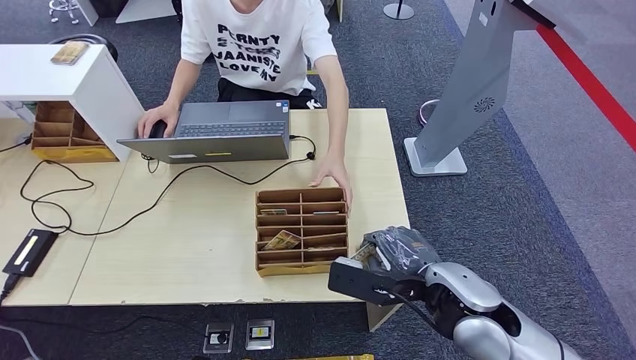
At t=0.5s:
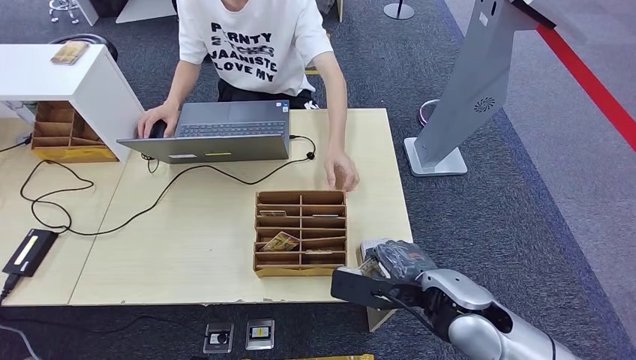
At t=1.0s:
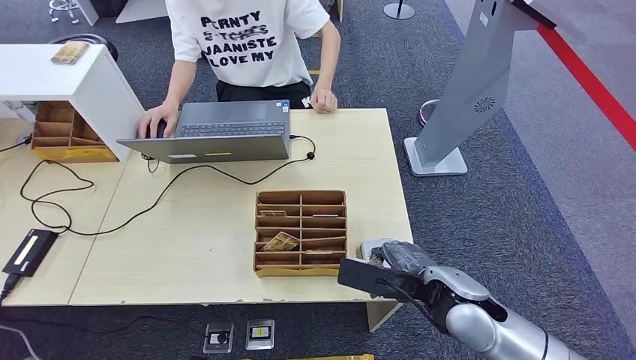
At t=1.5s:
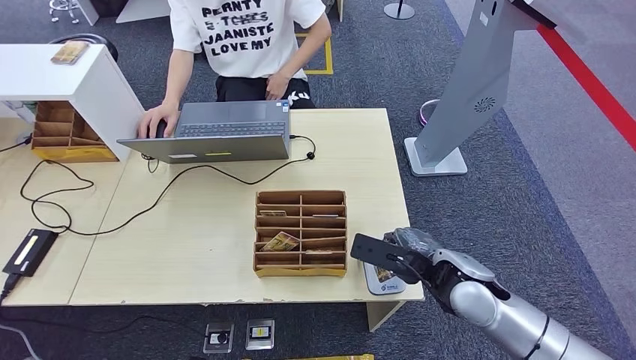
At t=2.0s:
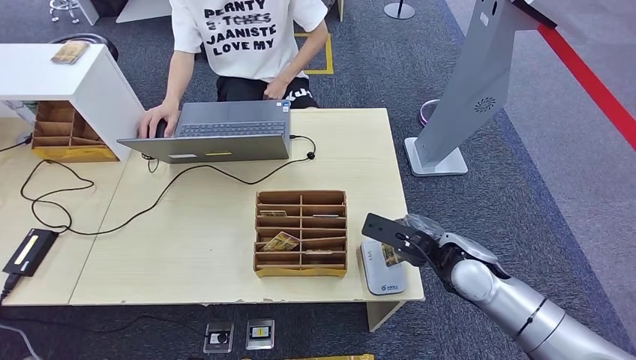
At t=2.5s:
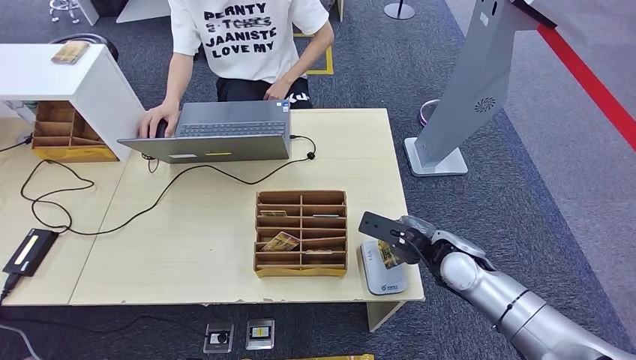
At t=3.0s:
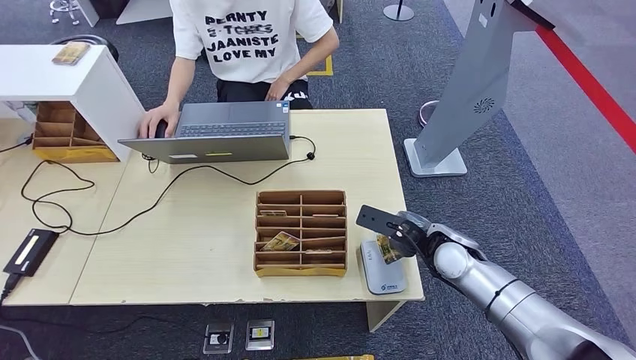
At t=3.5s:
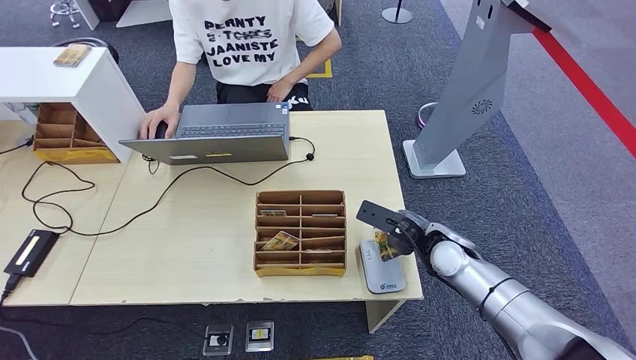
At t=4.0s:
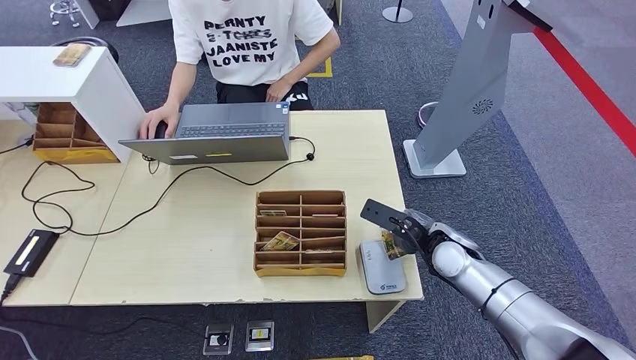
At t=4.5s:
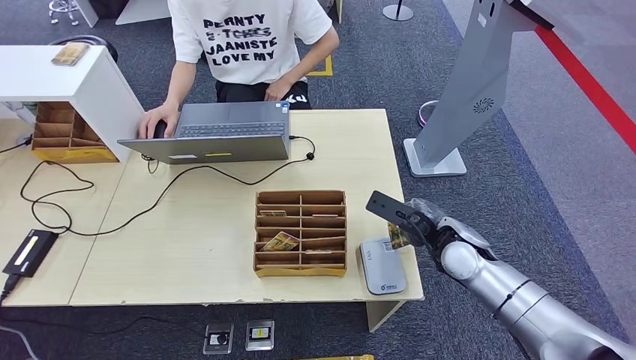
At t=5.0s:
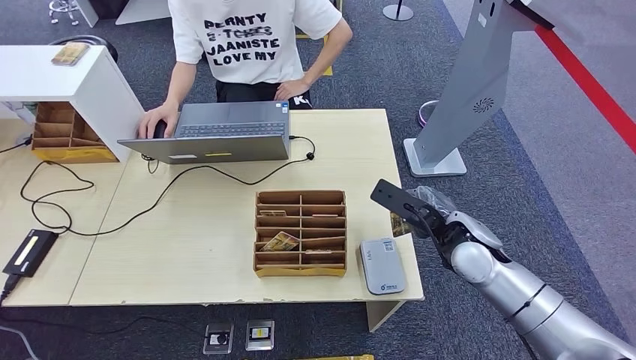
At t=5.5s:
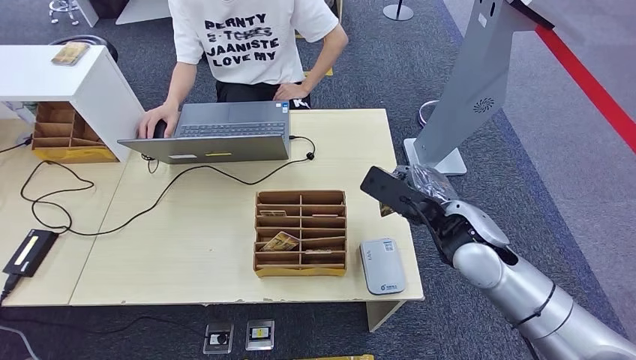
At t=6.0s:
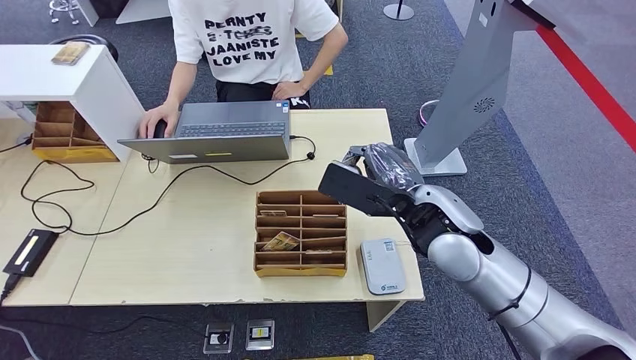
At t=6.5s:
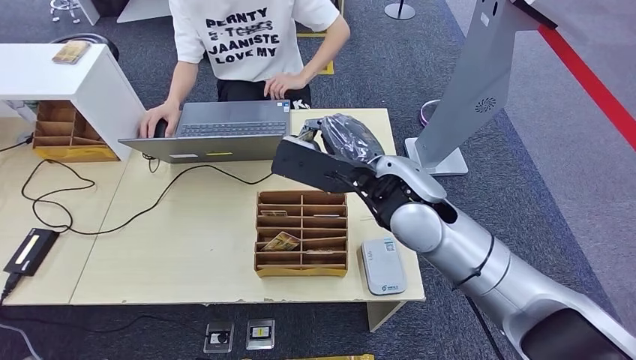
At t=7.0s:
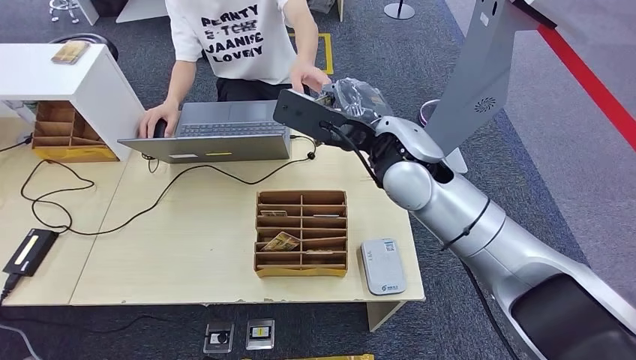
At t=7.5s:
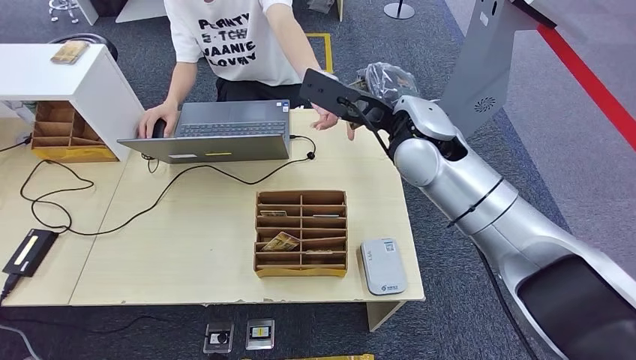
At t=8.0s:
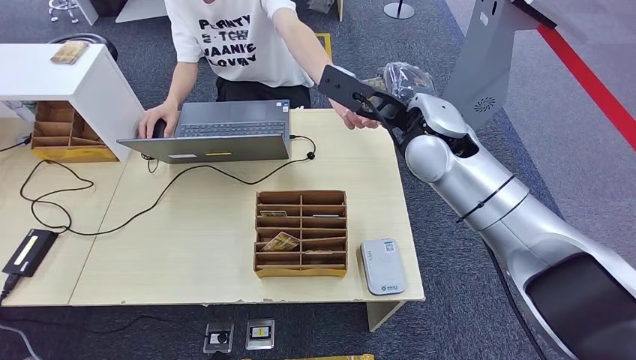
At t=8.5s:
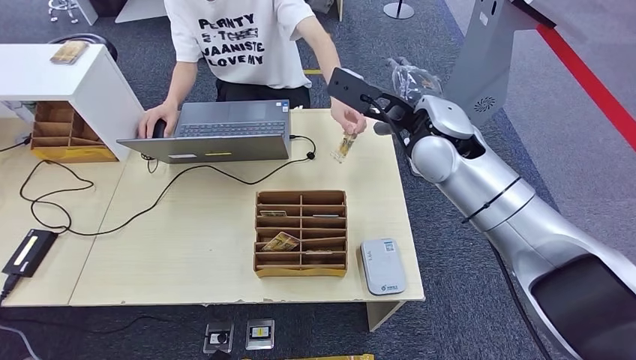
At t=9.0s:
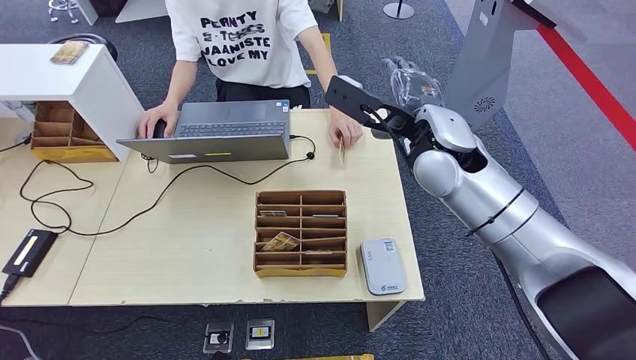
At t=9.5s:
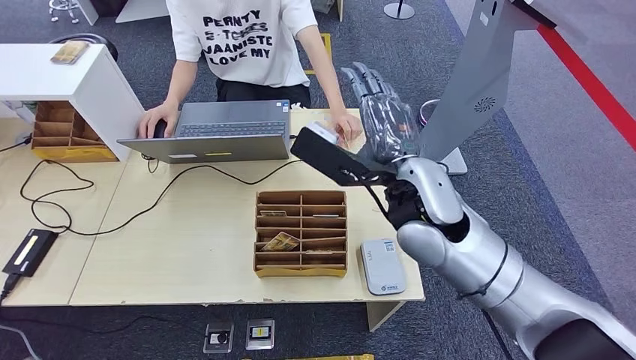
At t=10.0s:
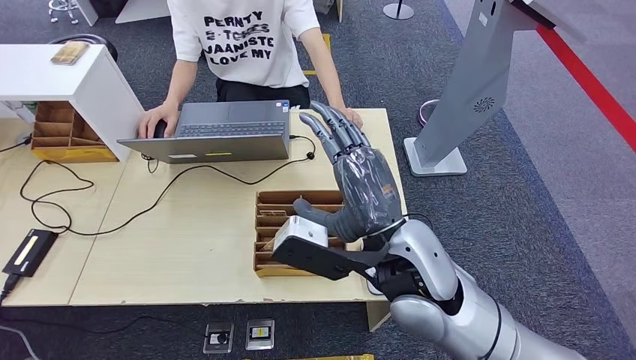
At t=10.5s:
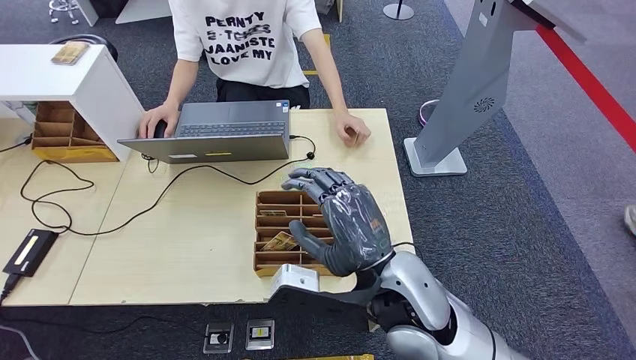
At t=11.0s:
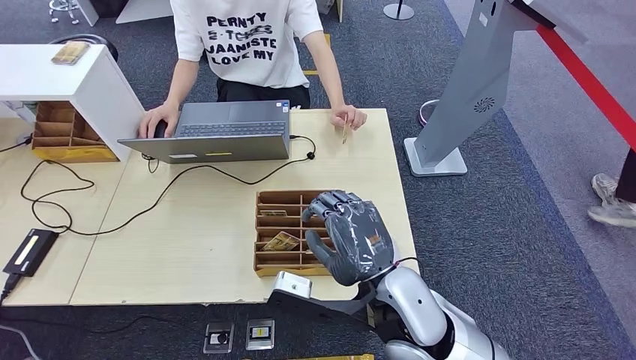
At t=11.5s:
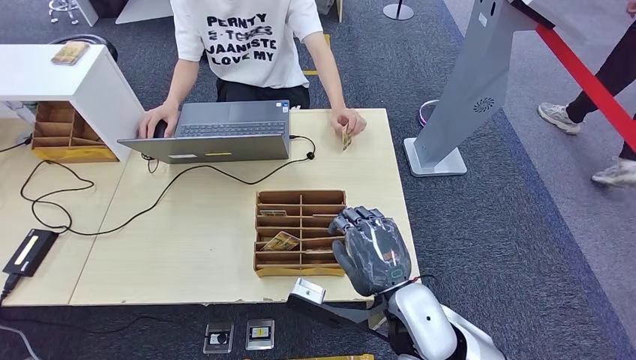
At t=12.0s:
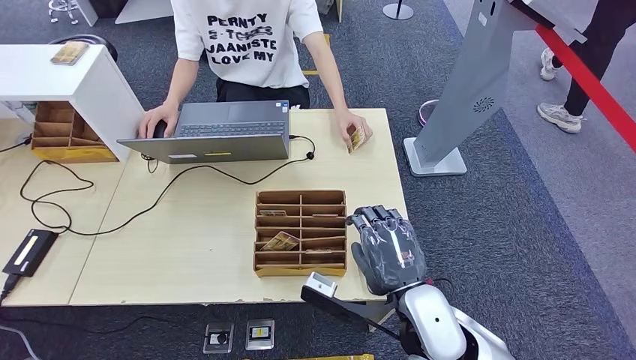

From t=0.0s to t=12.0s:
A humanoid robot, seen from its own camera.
Step, from t=0.0s to t=6.5s: Place the ID card on the card reader.
Step, from t=7.0s to t=10.5s: Hand the ID card to the person.
From t=0.0s to t=2.0s: The right hand shifts roughly 10 cm forward, to the right and downward.
From t=2.0s to t=4.0s: The right hand changes place by roughly 5 cm.
From t=4.0s to t=6.0s: The right hand heads upward and to the left, covering about 15 cm.
From t=10.0s to t=12.0s: The right hand is displaced downward by approximately 10 cm.

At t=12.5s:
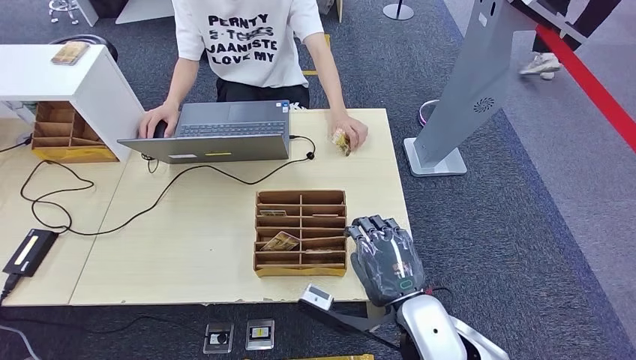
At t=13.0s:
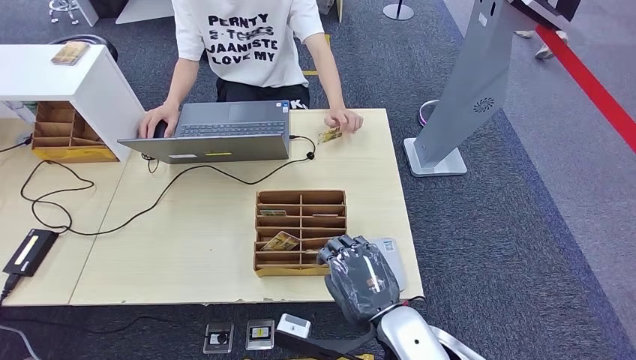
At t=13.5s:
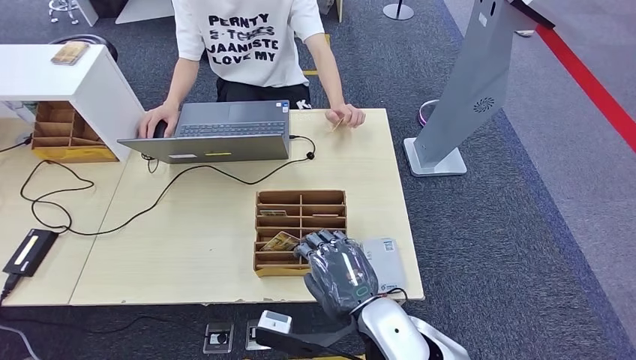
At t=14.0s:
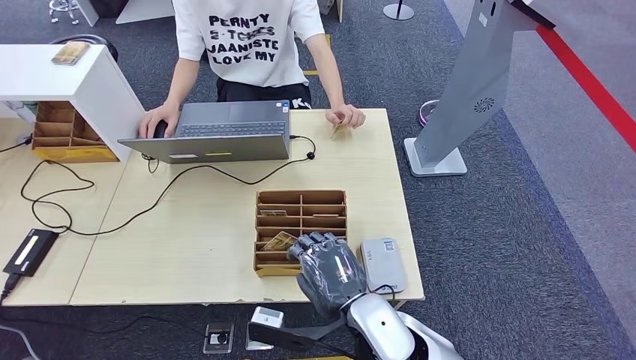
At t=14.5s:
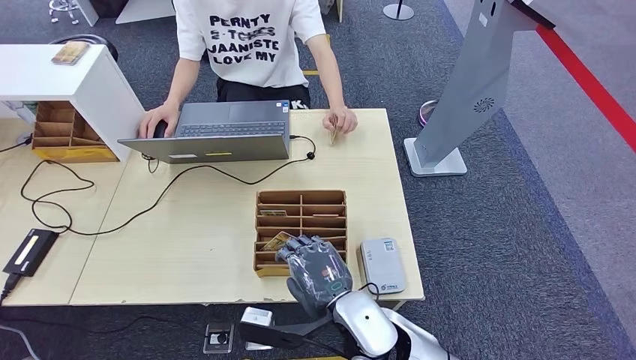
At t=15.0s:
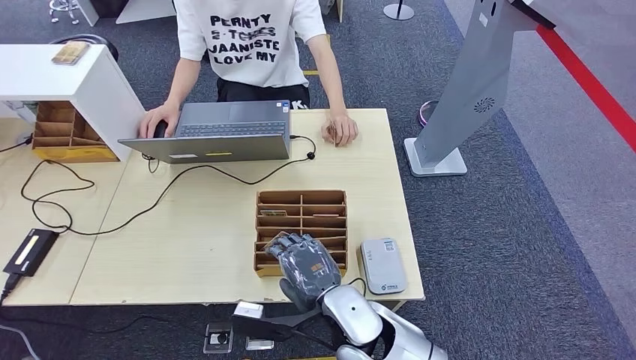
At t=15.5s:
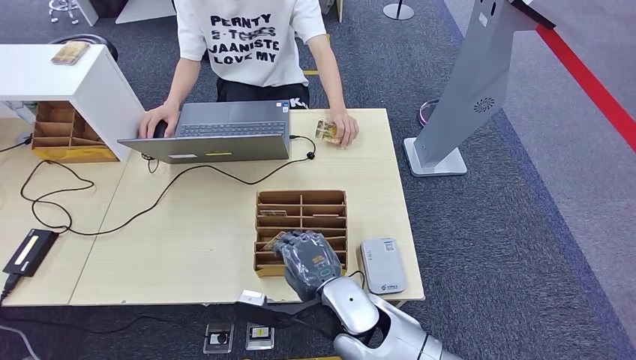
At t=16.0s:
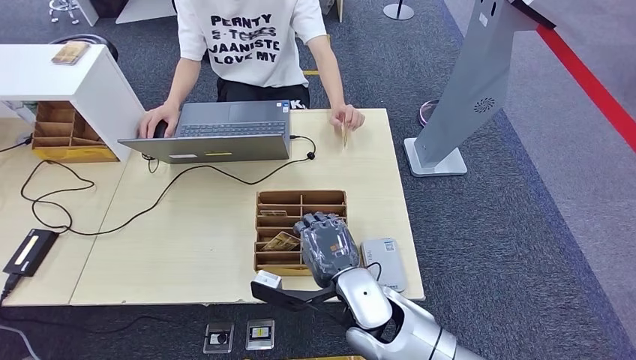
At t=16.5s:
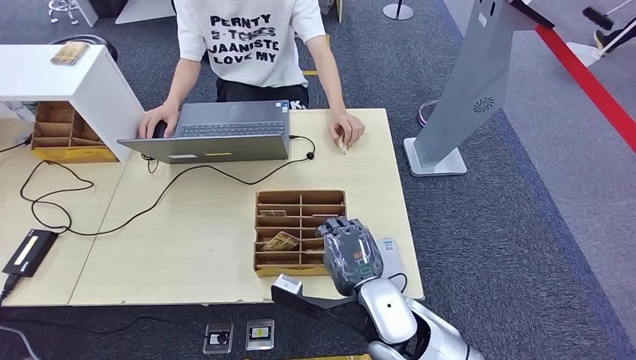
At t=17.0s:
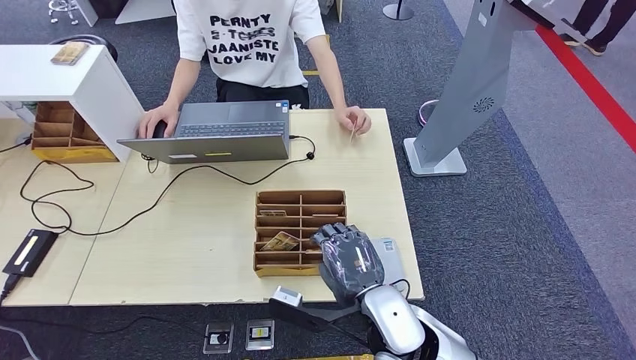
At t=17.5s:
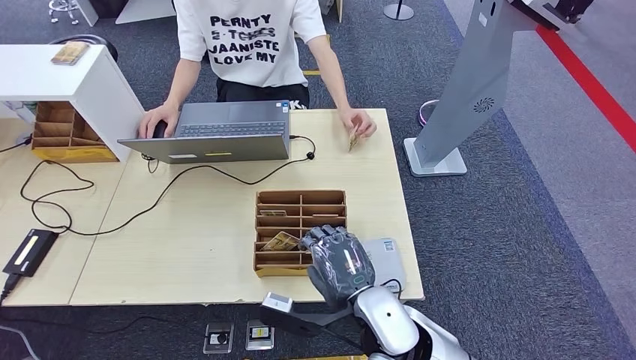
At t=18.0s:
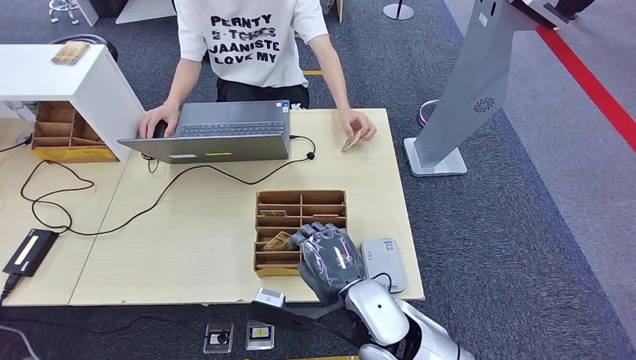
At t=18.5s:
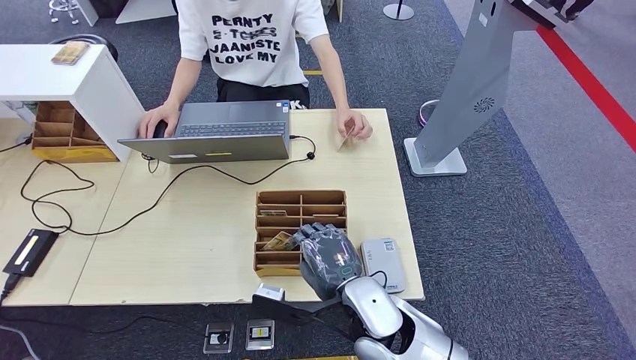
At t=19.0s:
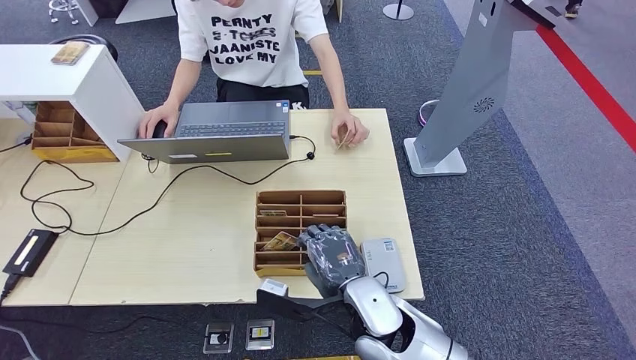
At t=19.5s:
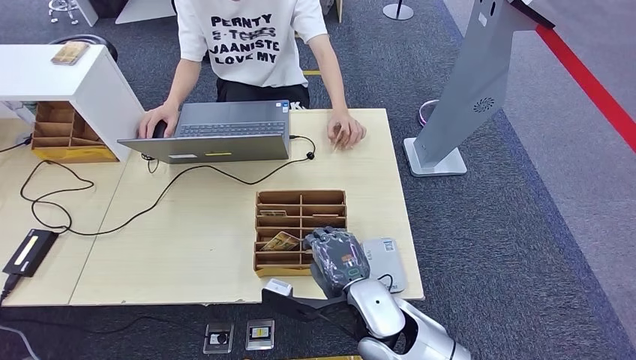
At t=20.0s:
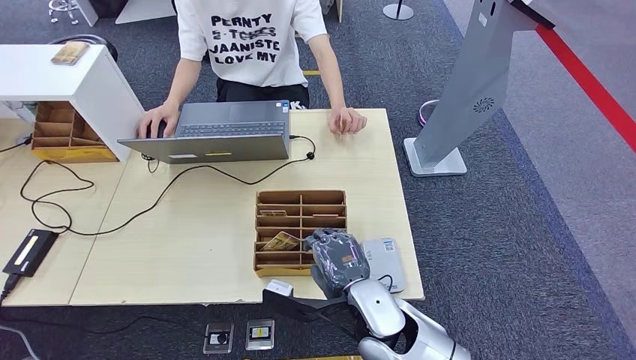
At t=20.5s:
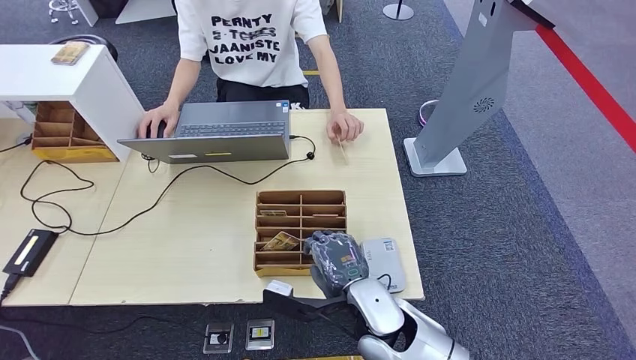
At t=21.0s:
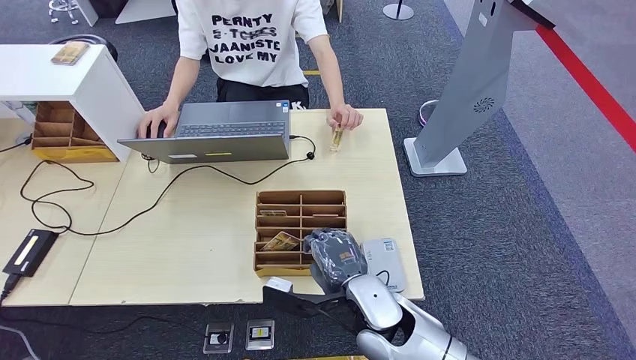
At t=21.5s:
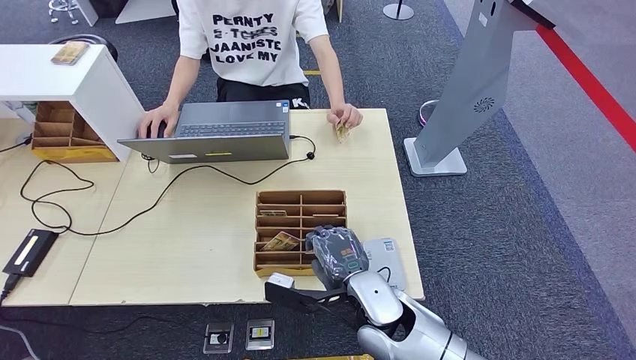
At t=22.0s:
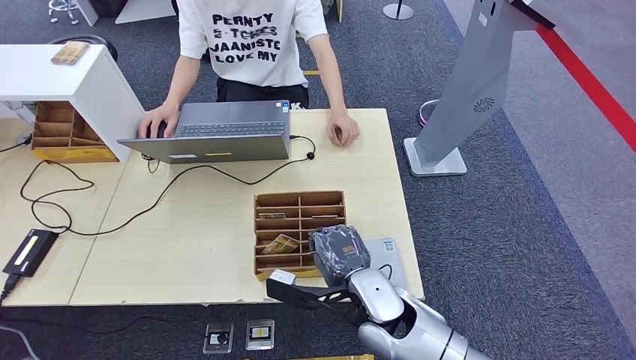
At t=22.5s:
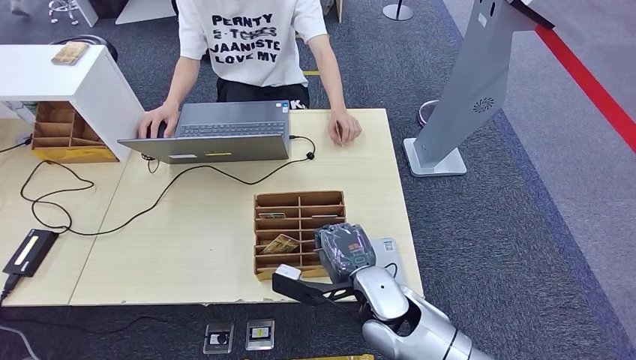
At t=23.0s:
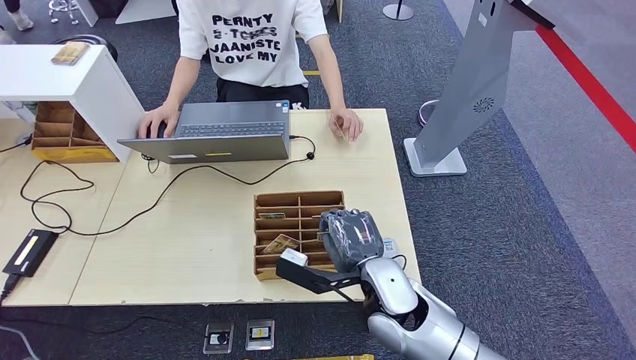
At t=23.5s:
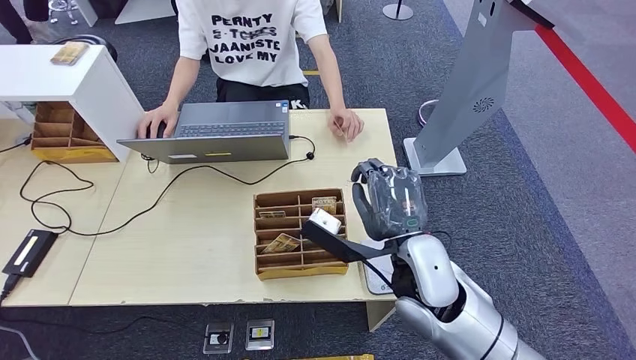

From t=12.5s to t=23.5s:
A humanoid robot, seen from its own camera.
From t=12.5s to t=14.5s: The right hand goes some 10 cm to the left.
From t=14.5s to t=21.5s: The hands stay close to where they were, moving slightly.
From t=21.5s to t=23.5s: The right hand heads upward, covering approximately 10 cm.
